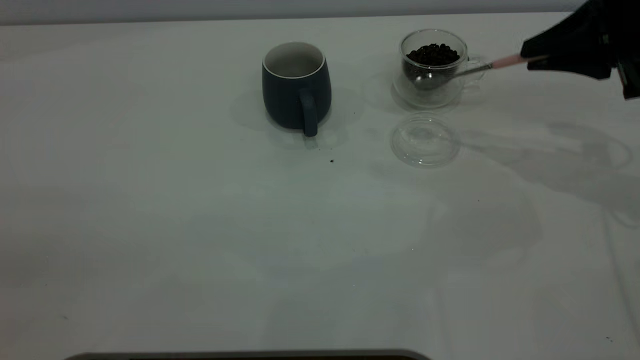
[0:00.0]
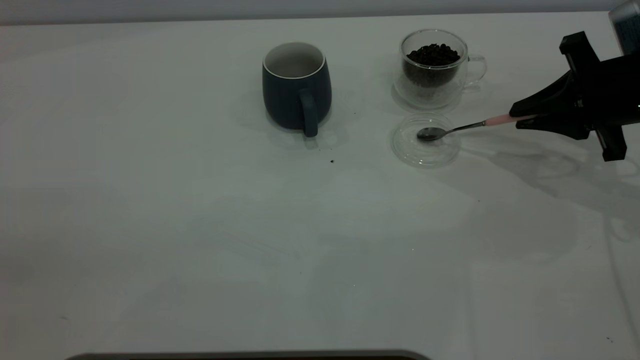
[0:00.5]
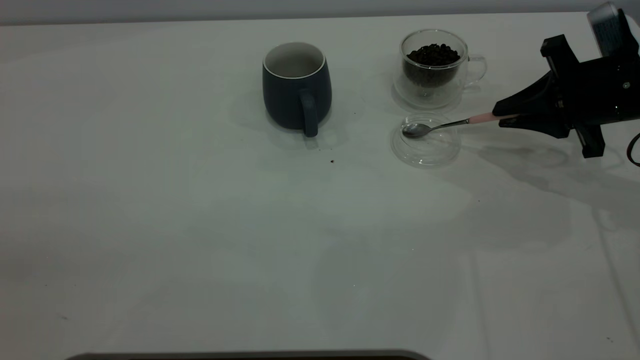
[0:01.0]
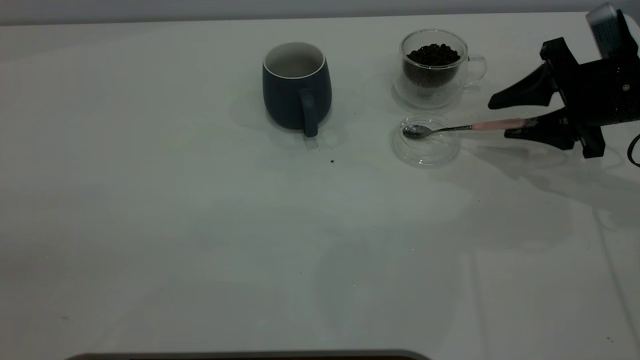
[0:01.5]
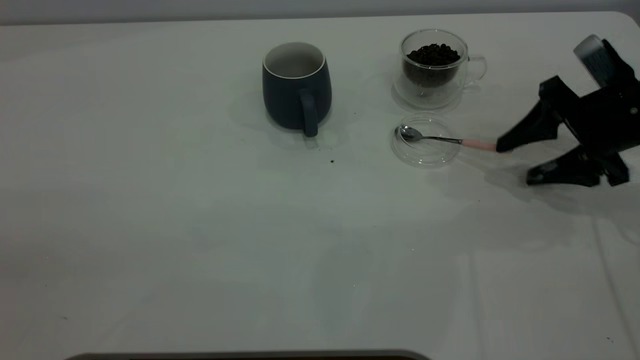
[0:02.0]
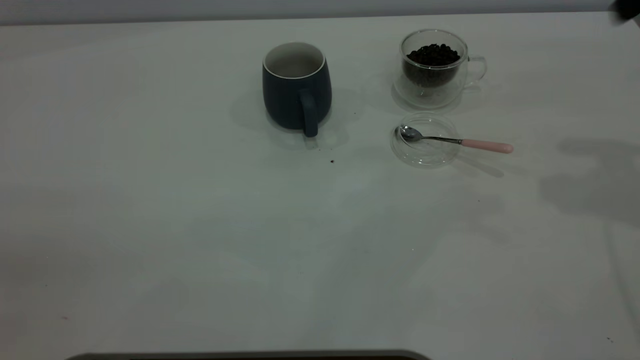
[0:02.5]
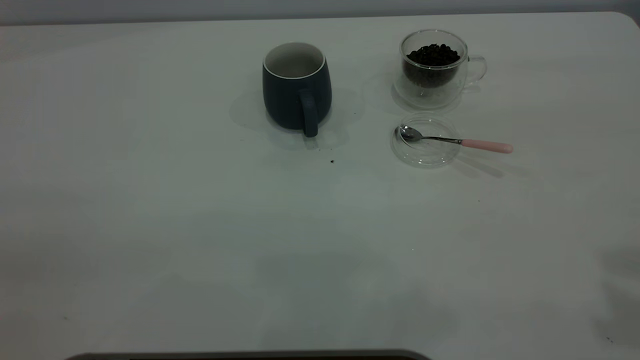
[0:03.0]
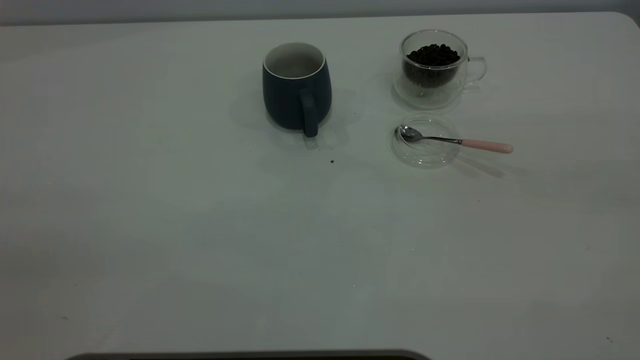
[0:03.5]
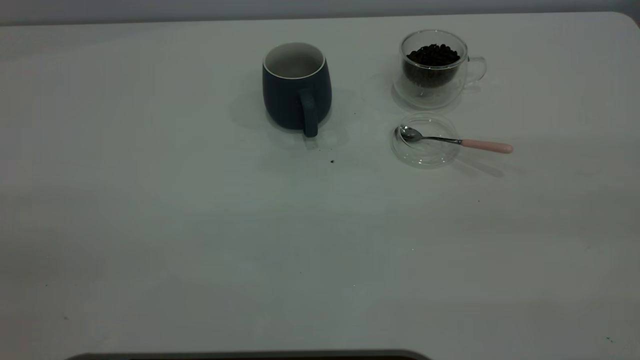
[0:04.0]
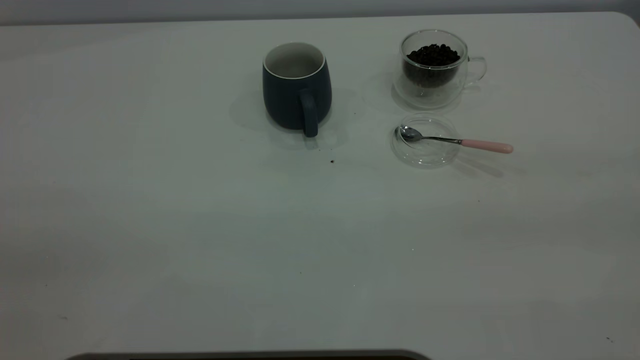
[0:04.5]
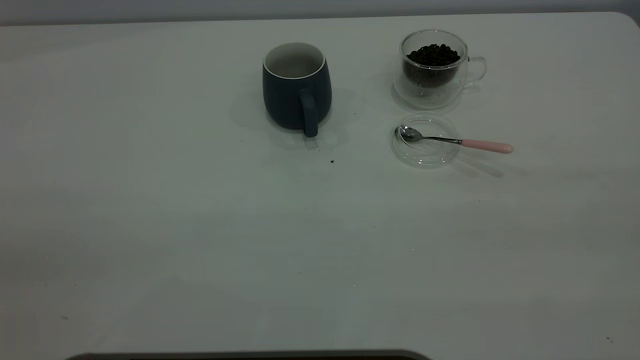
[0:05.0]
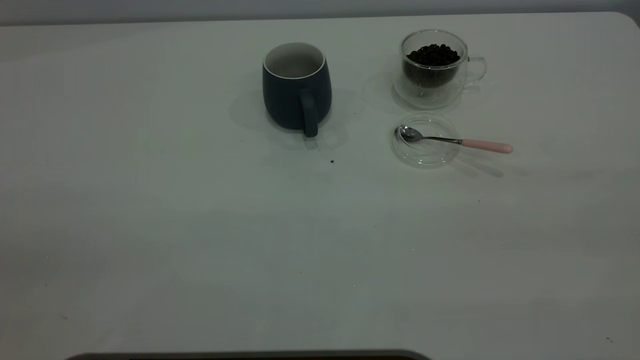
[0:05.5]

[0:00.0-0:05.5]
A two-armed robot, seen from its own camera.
Task of the whole recording: the left gripper place the grey cup in the center of the table, the right gripper take the pink spoon from the cup lid and scoop out the coffee beans from the coffee cup and put them into the grey cup, the right gripper put the spoon back into the cup lid.
Step, 0:00.0 to 0:02.0: Place the spoon back in its original place.
0:00.0 to 0:02.0: The right gripper is displaced downward by some 10 cm, and opens up.
0:02.0 to 0:03.5: The right gripper travels upward and backward by approximately 40 cm.
